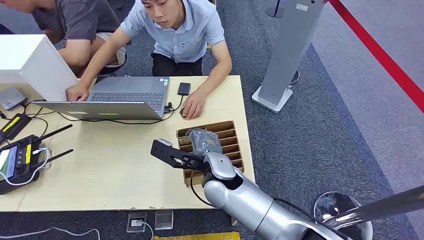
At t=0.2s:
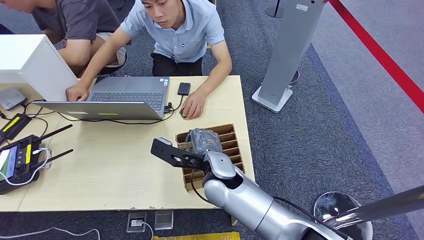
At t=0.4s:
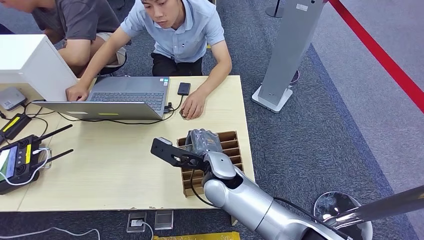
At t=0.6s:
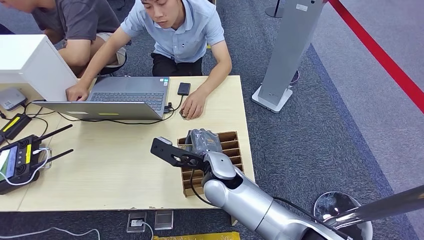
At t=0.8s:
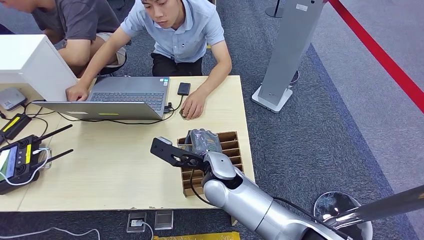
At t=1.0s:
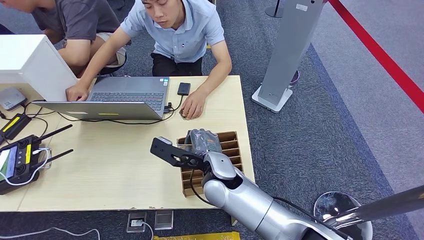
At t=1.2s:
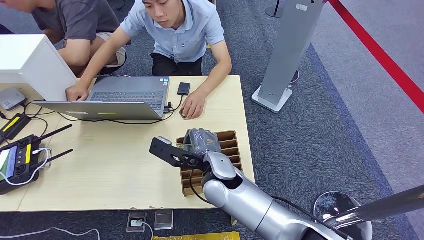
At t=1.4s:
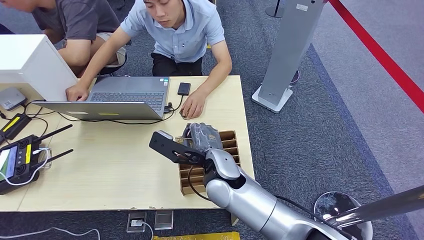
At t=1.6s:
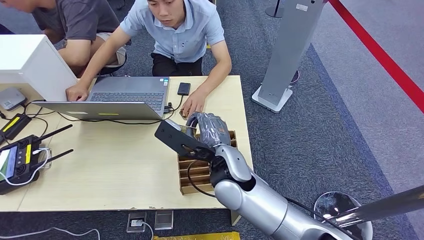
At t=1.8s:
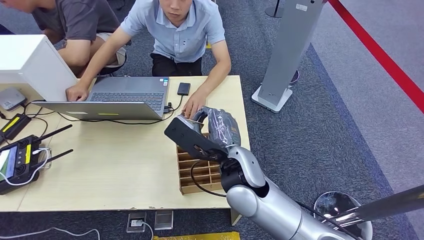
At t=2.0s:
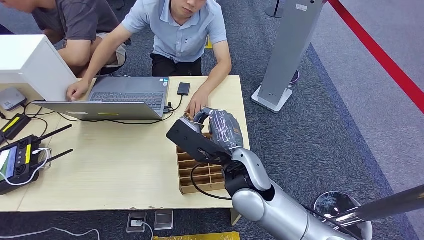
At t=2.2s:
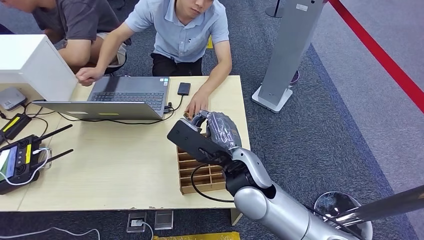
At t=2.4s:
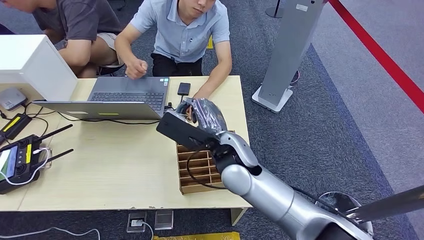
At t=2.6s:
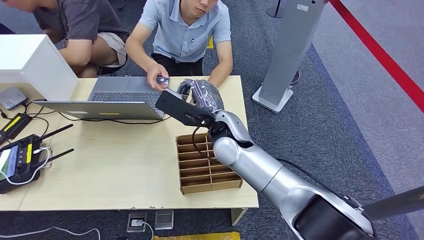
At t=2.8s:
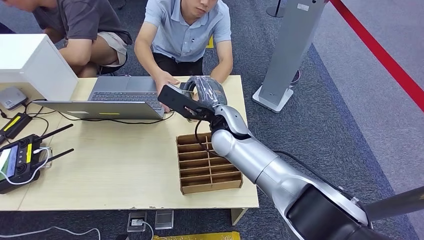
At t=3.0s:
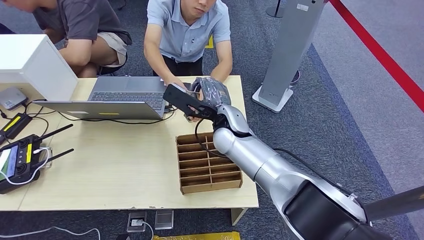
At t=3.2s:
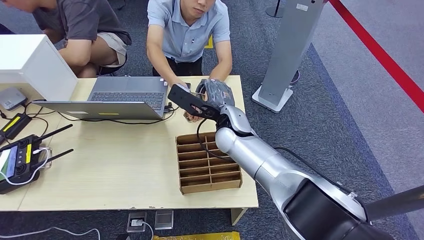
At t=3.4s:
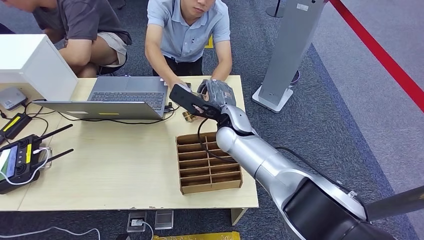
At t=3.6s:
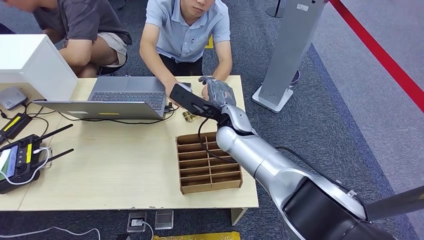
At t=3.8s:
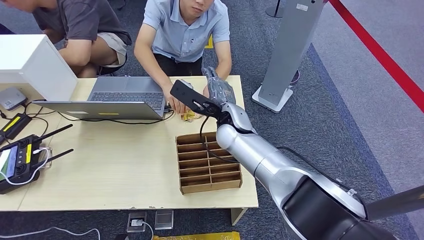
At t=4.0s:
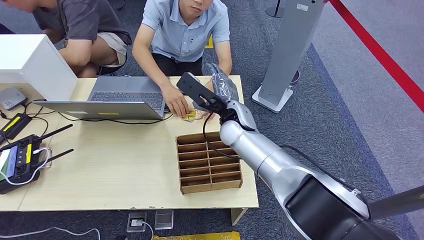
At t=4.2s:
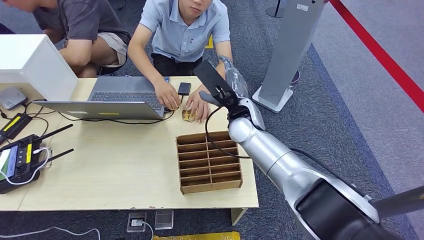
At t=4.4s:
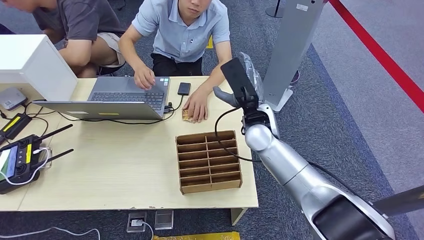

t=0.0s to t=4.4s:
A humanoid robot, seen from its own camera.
Step, t=0.0s to t=1.6s: Pick up the room card from the card holder.
Step, t=1.8s to t=4.4s: Hand the room card to the target.
t=3.0s to t=4.4s: The right hand shifts roughly 5 cm to the right.

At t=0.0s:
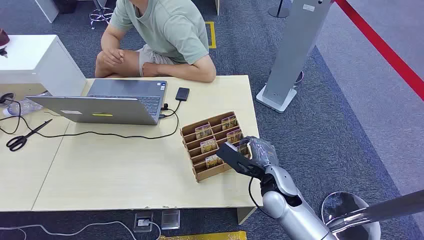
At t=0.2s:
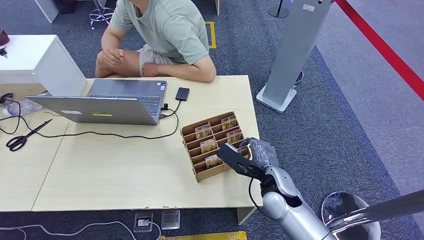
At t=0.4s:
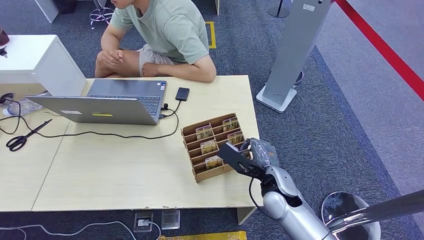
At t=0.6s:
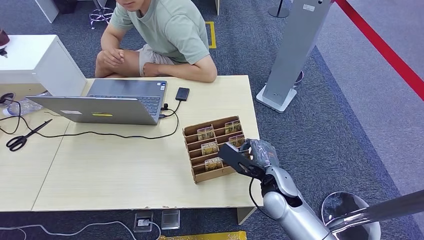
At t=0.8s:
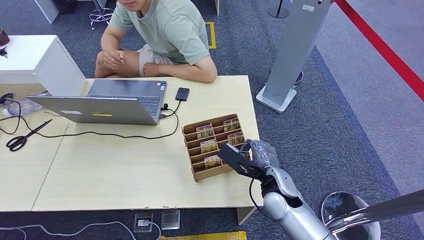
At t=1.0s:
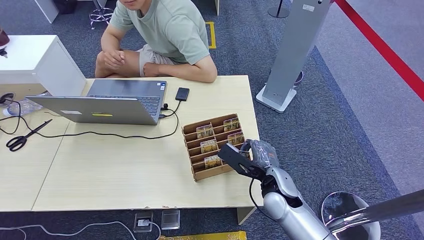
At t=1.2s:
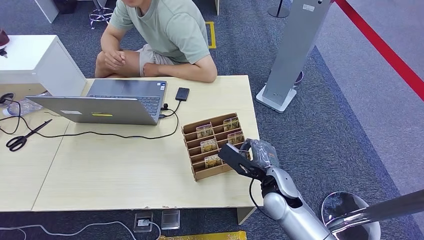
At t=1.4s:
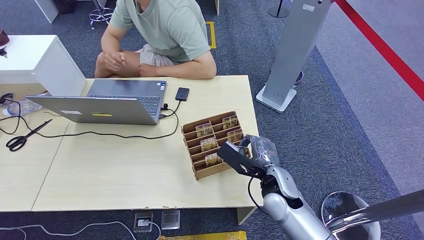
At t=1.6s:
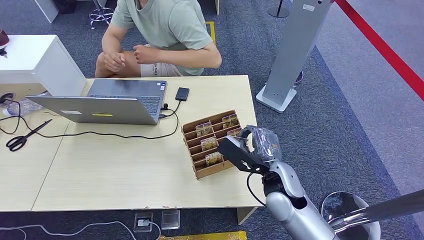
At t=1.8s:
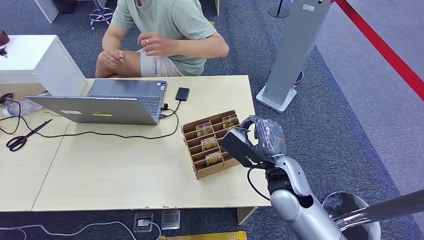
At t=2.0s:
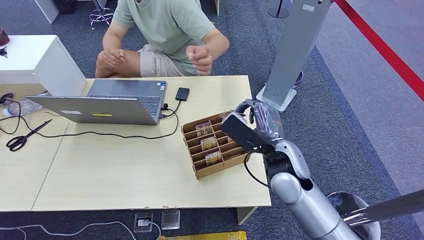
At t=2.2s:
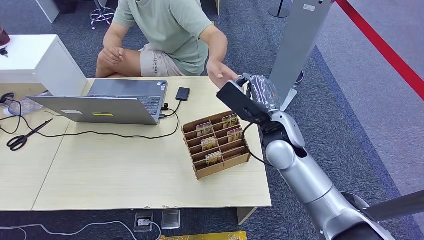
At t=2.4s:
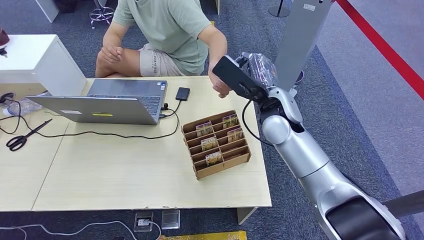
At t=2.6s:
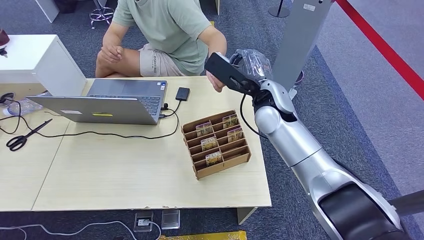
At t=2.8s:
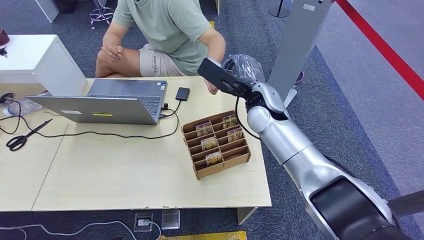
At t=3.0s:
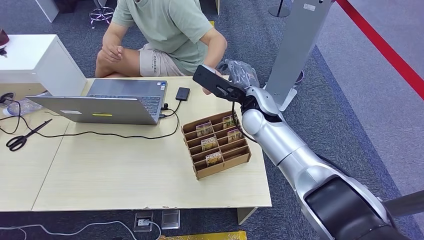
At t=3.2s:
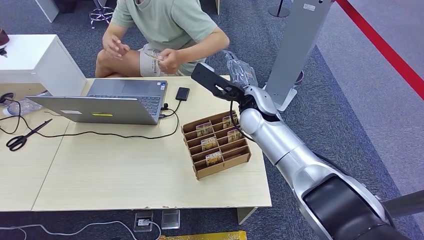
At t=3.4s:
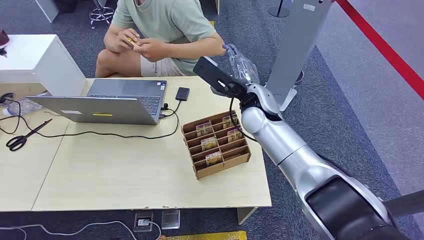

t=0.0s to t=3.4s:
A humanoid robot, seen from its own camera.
Step, t=0.0s to t=1.6s: Pick up the room card from the card holder.
Step, t=2.4s to t=3.2s: Hand the room card to the target.
t=1.6s to t=3.4s: The right hand is displaced forward and upward by some 20 cm.
